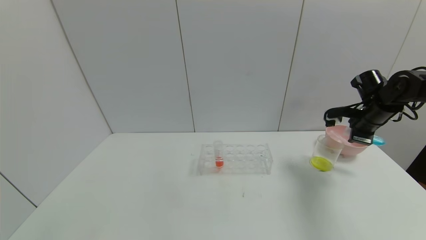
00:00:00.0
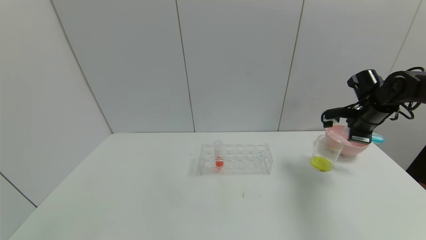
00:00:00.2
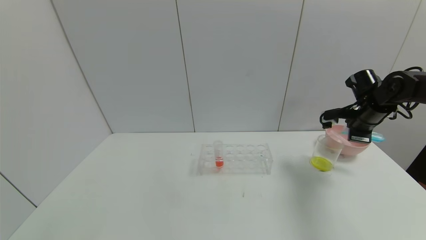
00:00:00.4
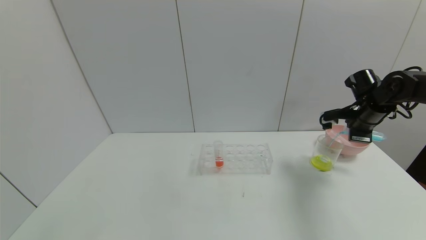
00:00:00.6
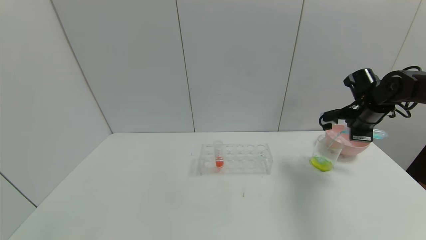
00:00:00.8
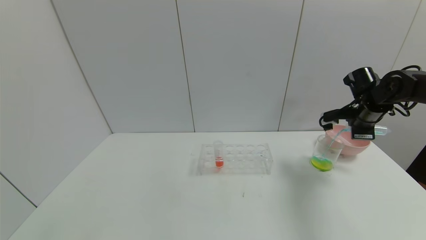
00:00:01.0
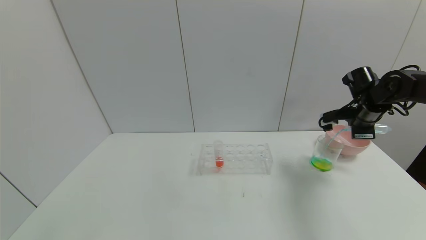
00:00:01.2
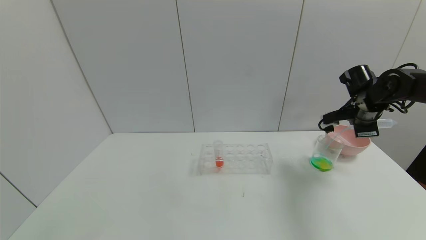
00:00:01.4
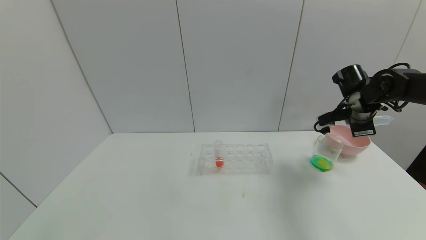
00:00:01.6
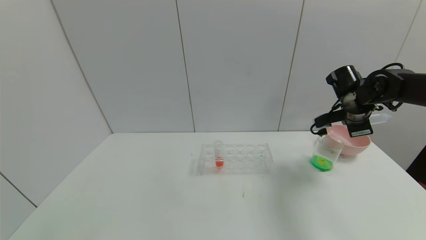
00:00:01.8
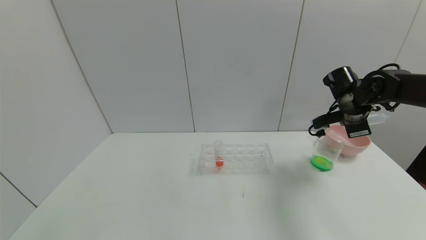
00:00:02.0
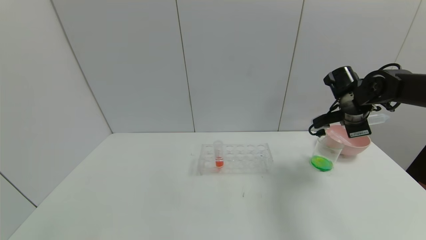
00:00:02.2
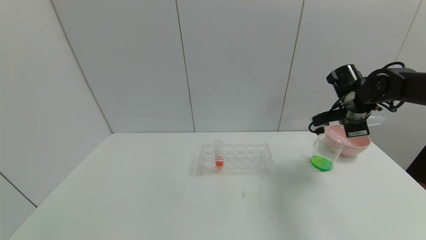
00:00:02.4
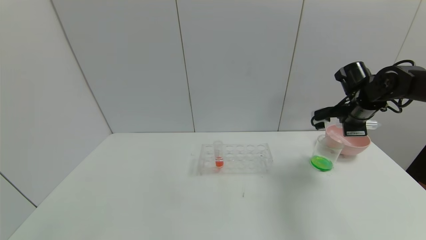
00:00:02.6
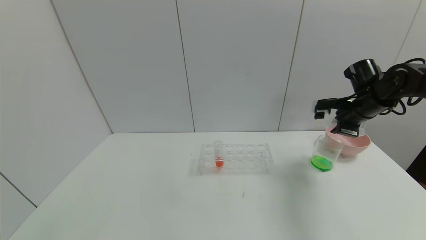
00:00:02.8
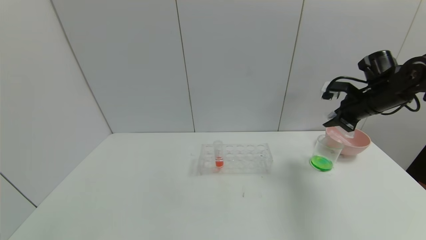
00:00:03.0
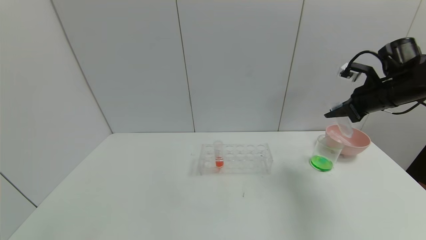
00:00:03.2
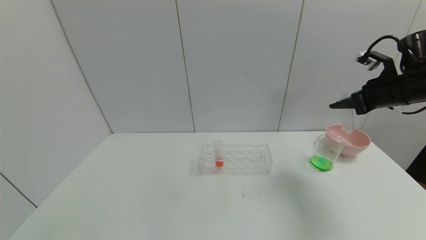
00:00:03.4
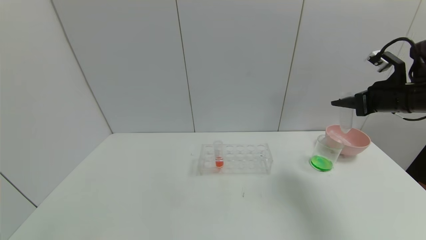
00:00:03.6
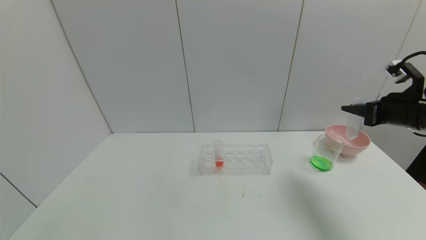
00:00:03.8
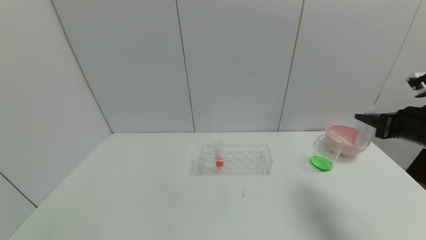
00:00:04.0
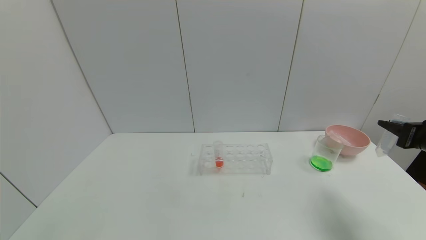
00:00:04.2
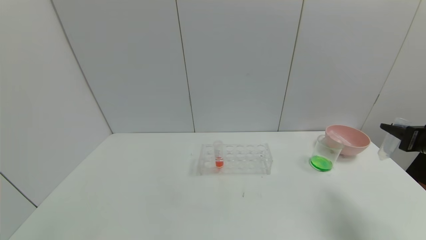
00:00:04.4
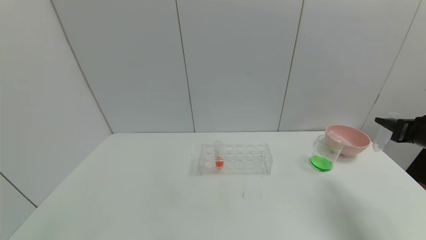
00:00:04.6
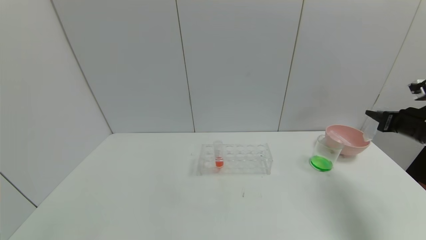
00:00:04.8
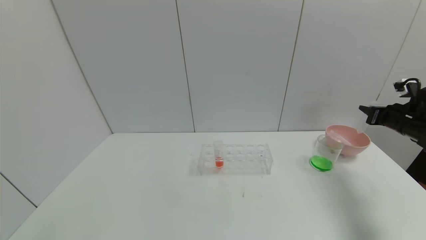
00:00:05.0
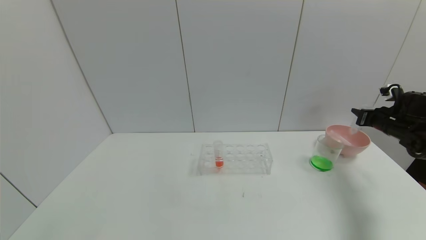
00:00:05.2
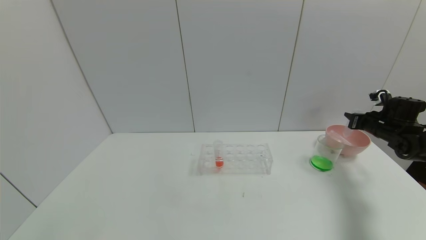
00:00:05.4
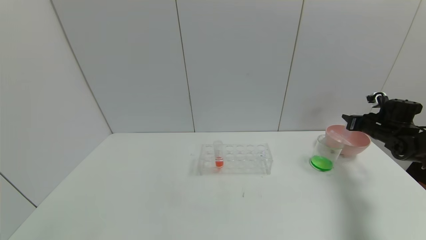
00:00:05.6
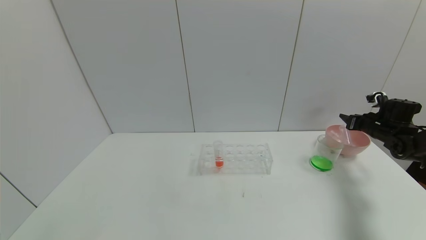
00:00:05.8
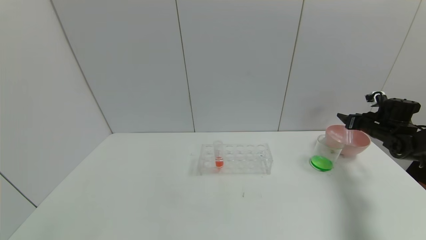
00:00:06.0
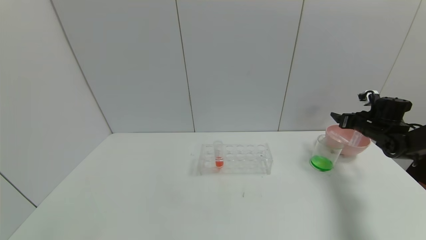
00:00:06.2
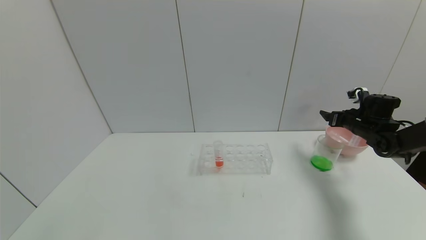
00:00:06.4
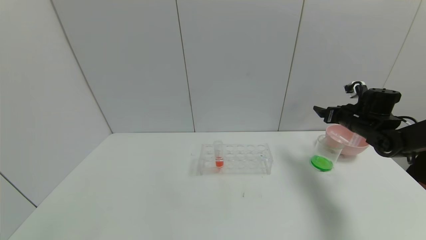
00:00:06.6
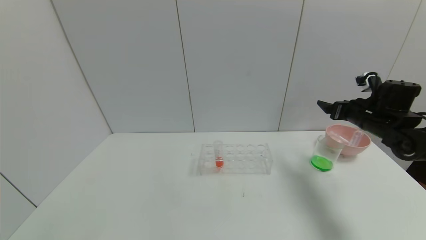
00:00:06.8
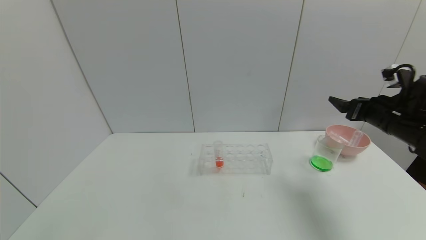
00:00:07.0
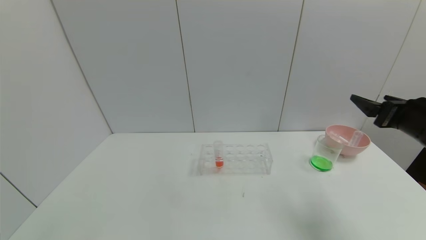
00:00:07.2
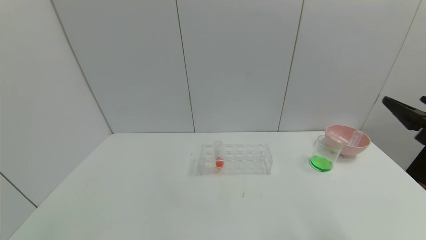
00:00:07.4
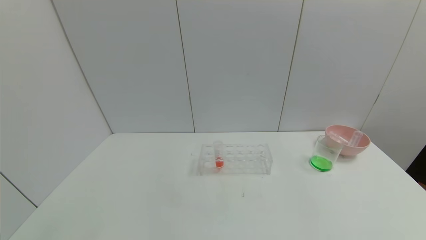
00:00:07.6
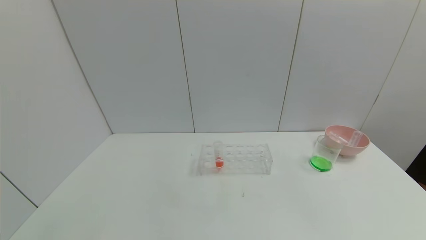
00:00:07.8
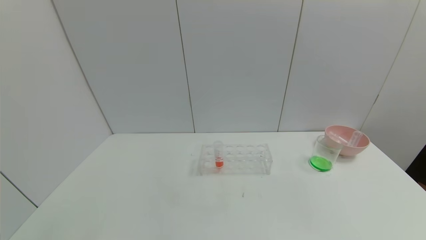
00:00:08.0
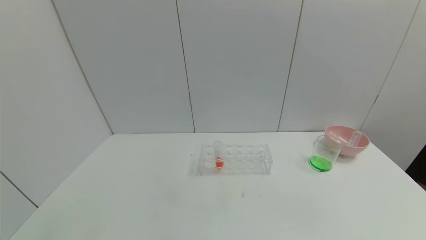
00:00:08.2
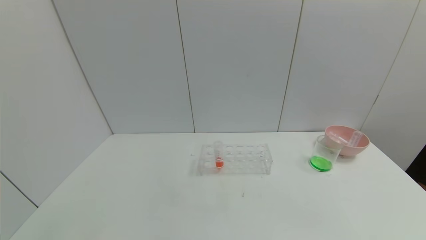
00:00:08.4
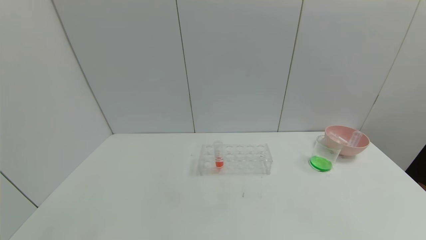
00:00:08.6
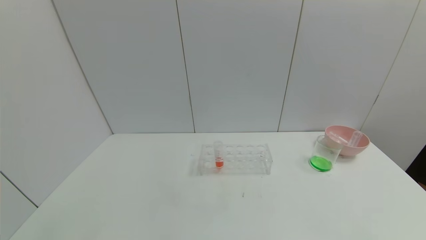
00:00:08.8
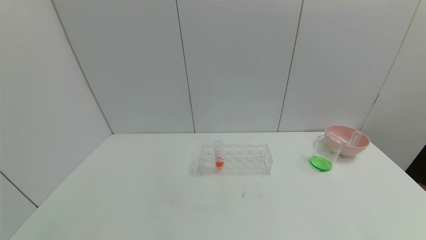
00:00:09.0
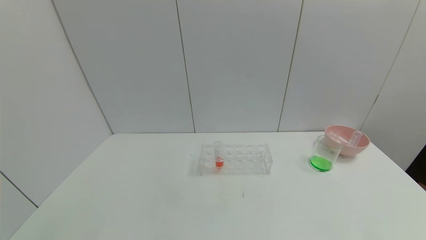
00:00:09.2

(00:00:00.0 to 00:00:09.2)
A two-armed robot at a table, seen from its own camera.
Task of the whole recording: pick up the test tube with yellow pigment and the test tube with blue pigment by grippers and pour them into the beaker.
Step, 00:00:00.0 - 00:00:02.0: Pour the blue reagent into the graduated cylinder with the right gripper.
Step, 00:00:02.2 - 00:00:05.6: Place the test tube into the bowl with the right gripper.
00:00:03.0 - 00:00:04.6: The right gripper shifts approximately 15 cm backward and to the right.
00:00:04.6 - 00:00:06.2: The right gripper travels forward and downward by approximately 20 cm, and opens up.
00:00:06.2 - 00:00:07.6: The right gripper heads backward, covering roughly 35 cm.
